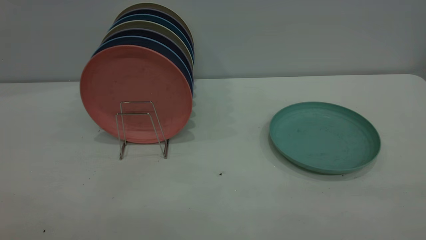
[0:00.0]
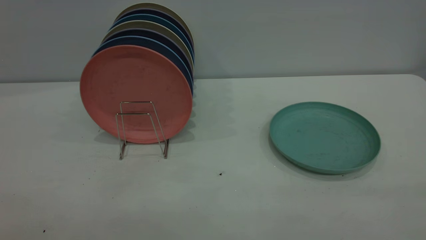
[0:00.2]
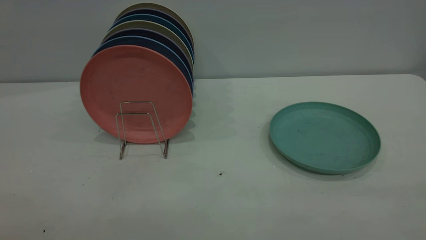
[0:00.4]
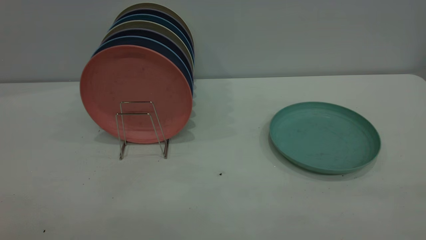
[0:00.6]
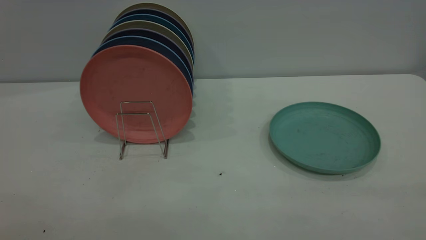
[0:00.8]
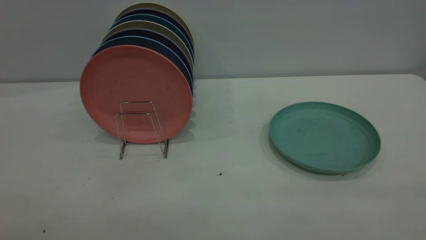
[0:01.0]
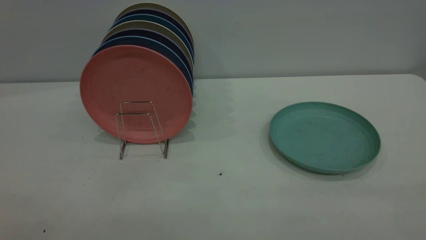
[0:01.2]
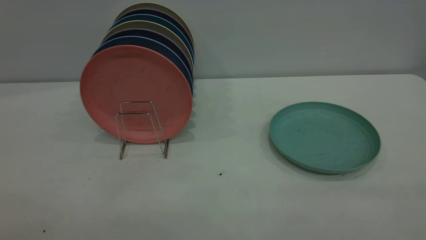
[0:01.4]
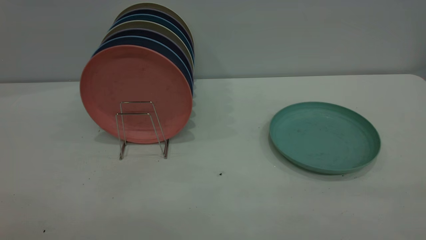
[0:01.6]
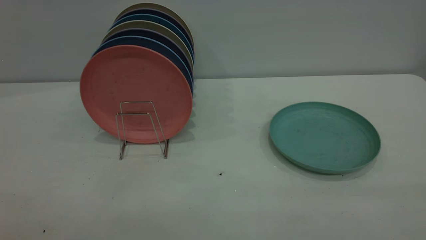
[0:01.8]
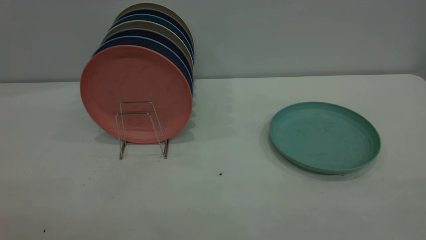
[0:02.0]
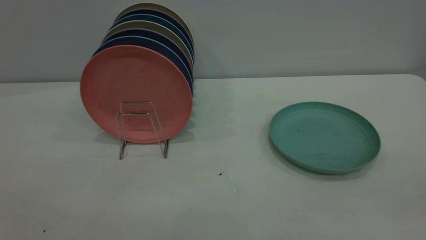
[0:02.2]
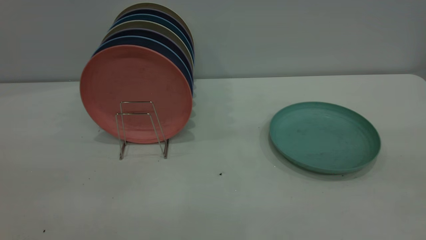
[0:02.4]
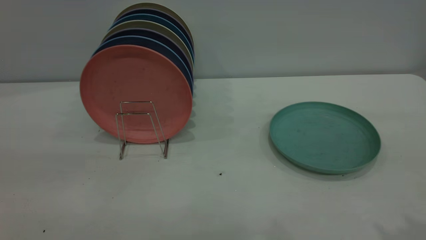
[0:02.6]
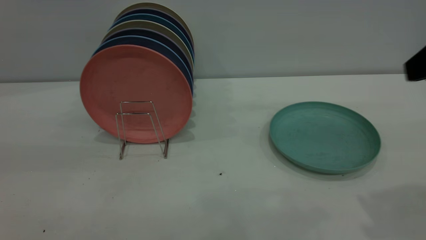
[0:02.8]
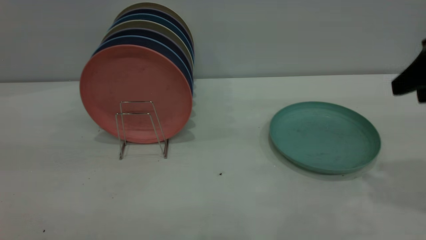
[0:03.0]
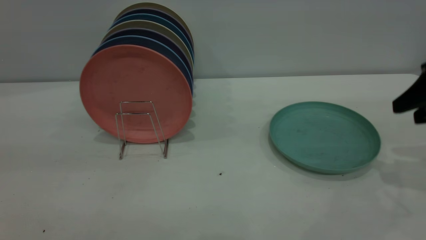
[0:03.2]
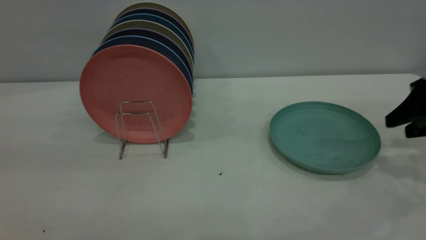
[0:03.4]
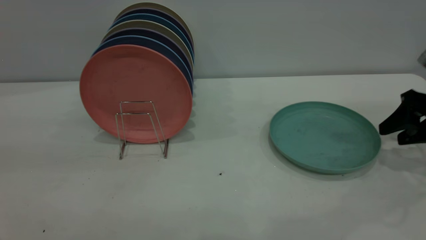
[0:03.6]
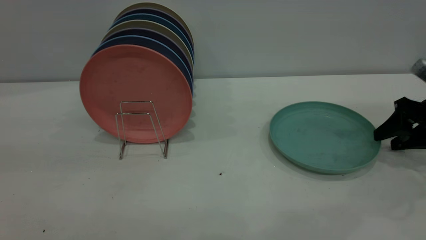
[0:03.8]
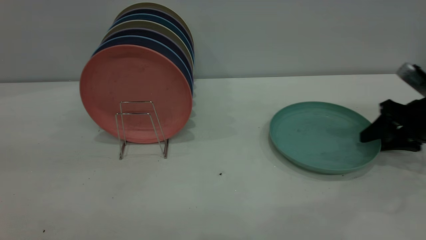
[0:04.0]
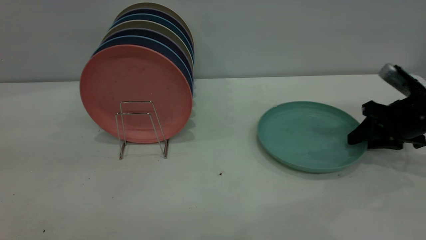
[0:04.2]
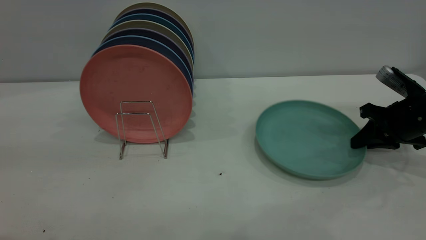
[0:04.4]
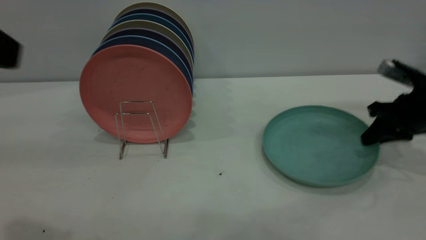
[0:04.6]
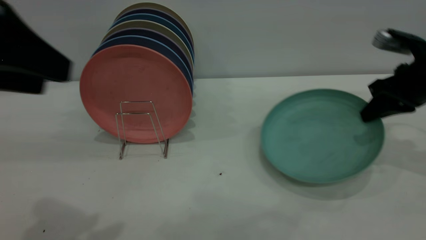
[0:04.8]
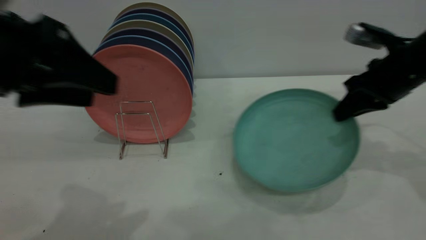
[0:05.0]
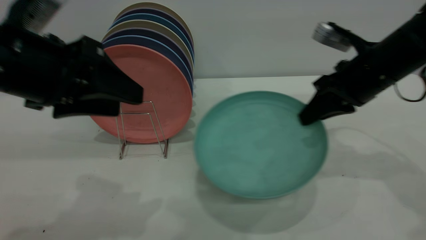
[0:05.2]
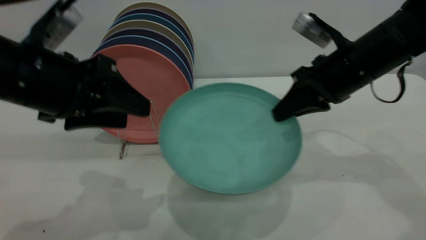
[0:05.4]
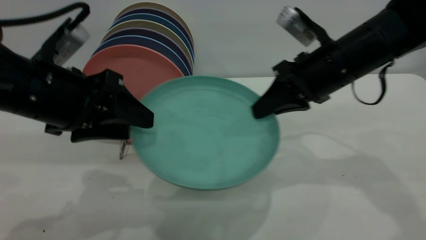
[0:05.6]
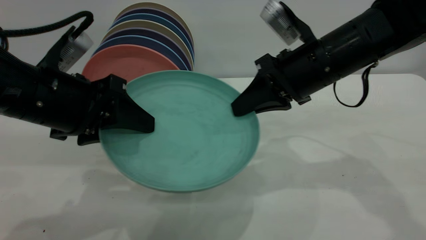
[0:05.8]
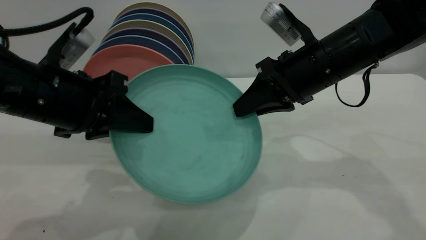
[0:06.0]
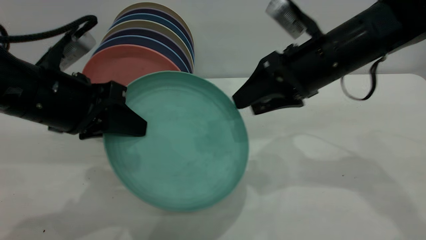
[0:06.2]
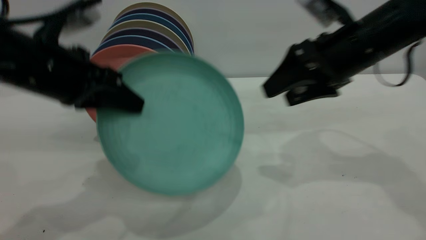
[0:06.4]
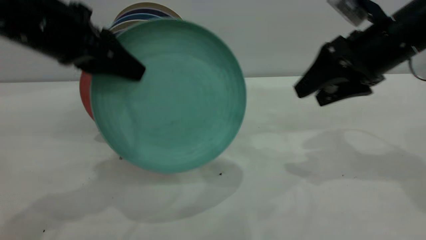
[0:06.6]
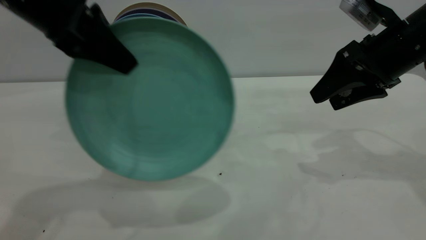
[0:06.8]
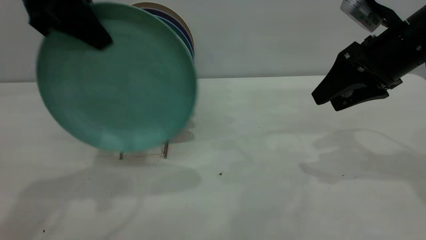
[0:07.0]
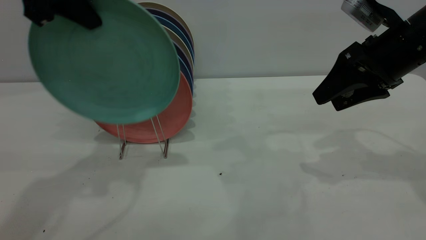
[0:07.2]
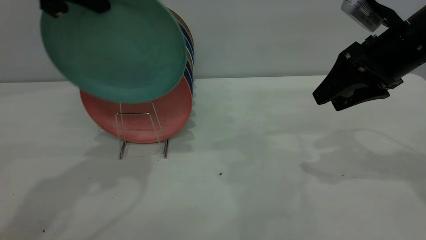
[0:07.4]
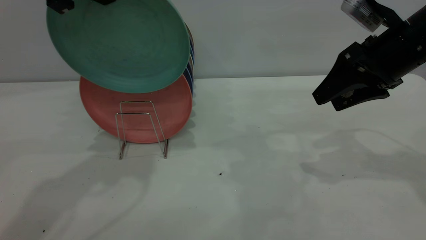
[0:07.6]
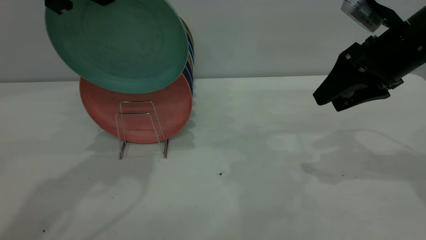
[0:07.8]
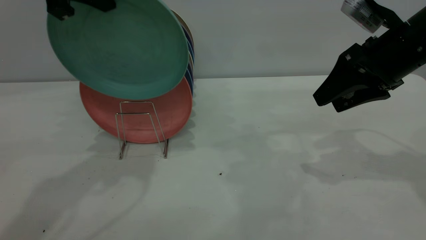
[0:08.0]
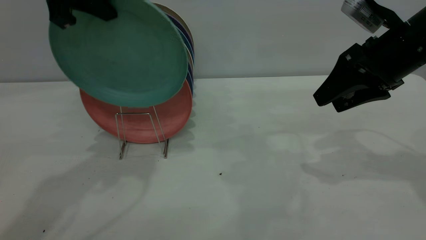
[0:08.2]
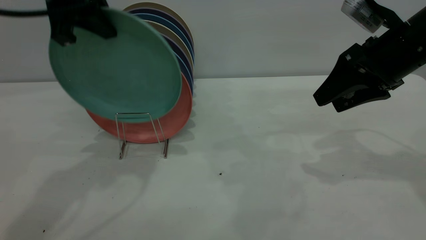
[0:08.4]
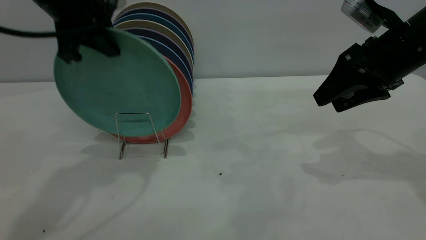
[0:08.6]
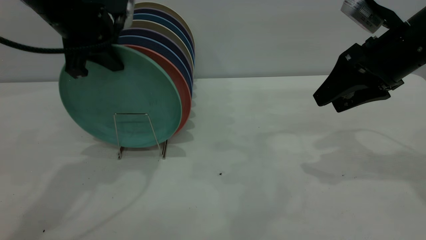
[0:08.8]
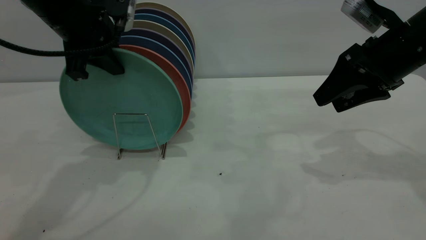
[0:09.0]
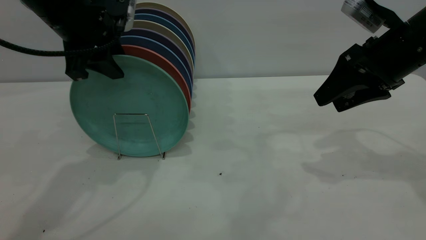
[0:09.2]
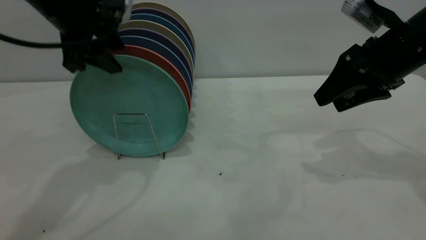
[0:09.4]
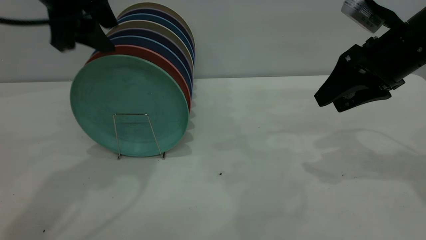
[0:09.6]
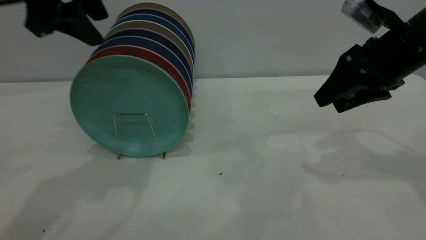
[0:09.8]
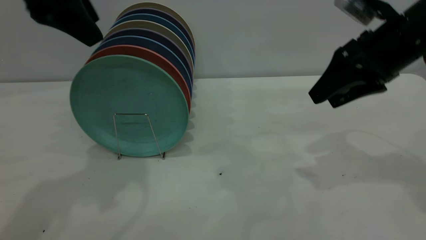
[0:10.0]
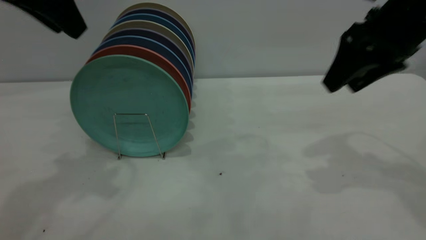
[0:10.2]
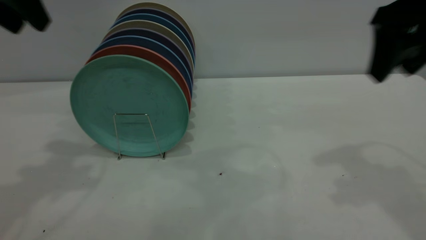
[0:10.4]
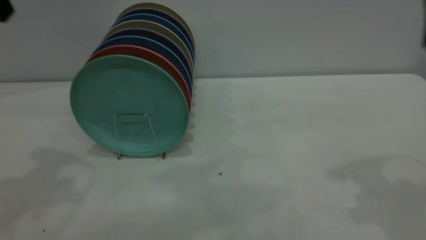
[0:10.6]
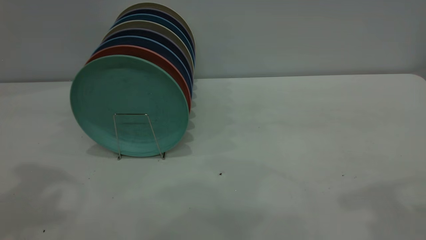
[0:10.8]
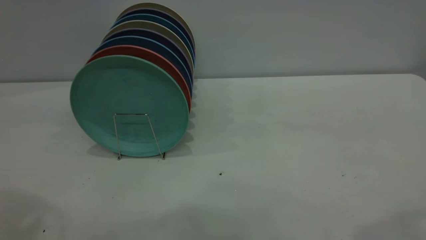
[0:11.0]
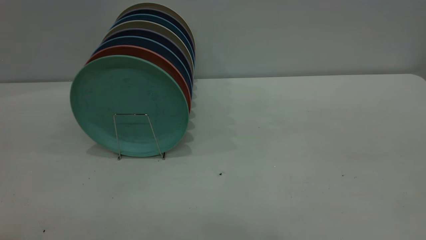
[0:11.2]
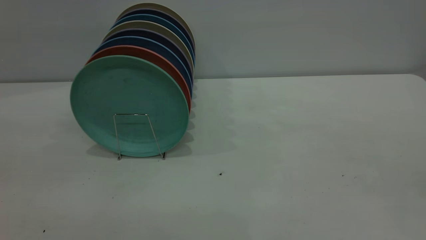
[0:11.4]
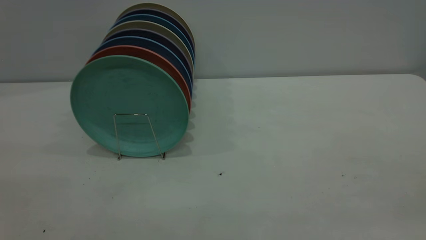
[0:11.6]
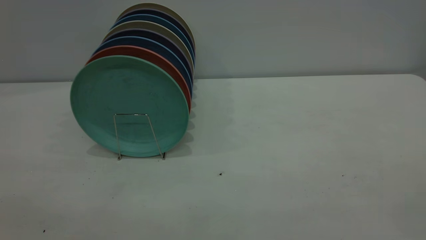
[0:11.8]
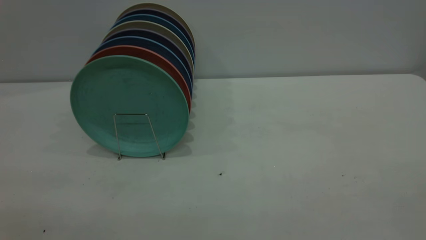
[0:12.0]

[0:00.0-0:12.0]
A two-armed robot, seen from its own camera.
Task of the whole recording: the right gripper grasp the green plate, the right gripper pass the green plate to the left gripper, and the left gripper place the green plate on the plate rack.
Step, 0:00.0 to 0:04.8: Pick up the plate with the right gripper.
Step, 0:05.0 to 0:06.2: Pass the plate from the right gripper to the left gripper.
Step, 0:06.4 to 0:09.6: Place the plate on the shelf.
0:00.0 to 0:01.6: Both grippers stay about where they are.
0:01.6 to 0:03.0: The right gripper travels forward by some 30 cm.
0:03.0 to 0:04.4: The right gripper travels downward and forward by about 20 cm, and closes up.
0:04.4 to 0:06.0: The right gripper goes approximately 20 cm to the left and upward, while the left gripper moves downward and forward, some 20 cm, and closes up.
0:06.0 to 0:07.6: The right gripper travels to the right by approximately 10 cm, and opens up. The left gripper is displaced upward and forward by about 20 cm.
0:07.6 to 0:09.0: The left gripper shifts approximately 10 cm downward.
0:09.0 to 0:10.4: The right gripper shifts about 15 cm upward and backward. Meanwhile the left gripper shifts roughly 15 cm upward, to the left and backward, and opens its fingers.
0:10.4 to 0:12.0: Both grippers move backward, about 30 cm.
